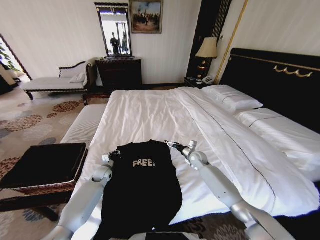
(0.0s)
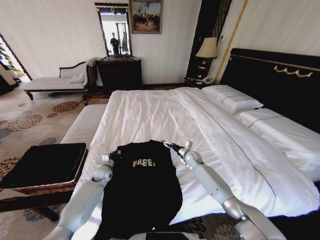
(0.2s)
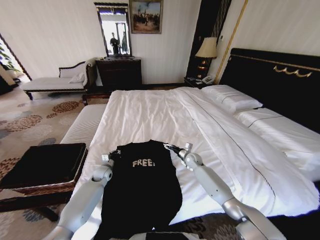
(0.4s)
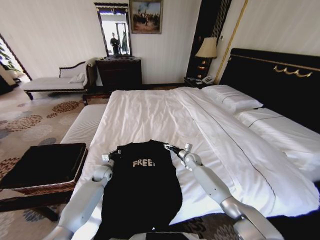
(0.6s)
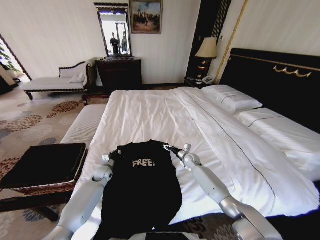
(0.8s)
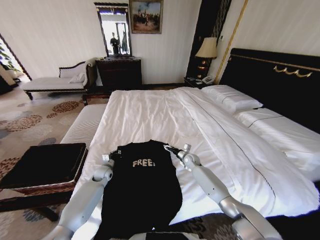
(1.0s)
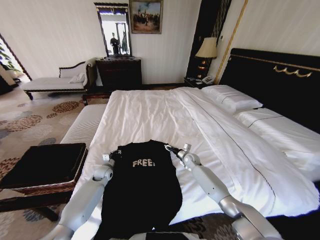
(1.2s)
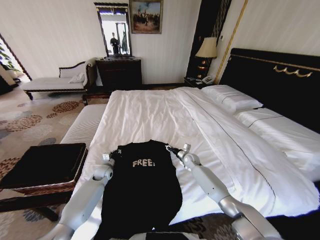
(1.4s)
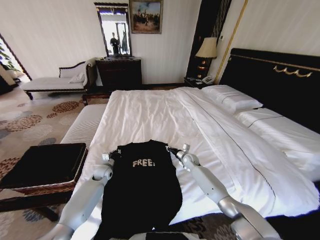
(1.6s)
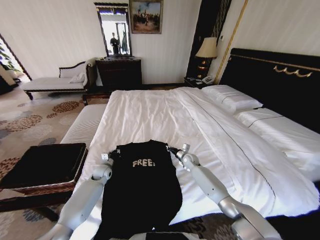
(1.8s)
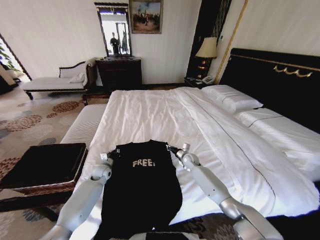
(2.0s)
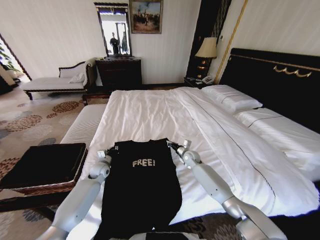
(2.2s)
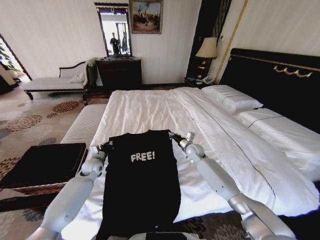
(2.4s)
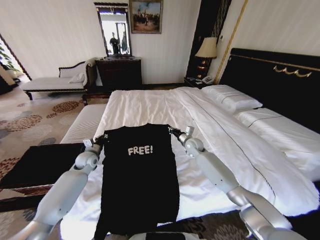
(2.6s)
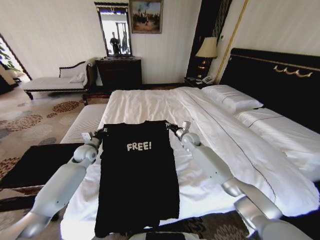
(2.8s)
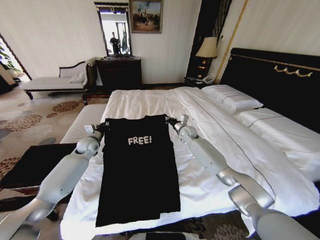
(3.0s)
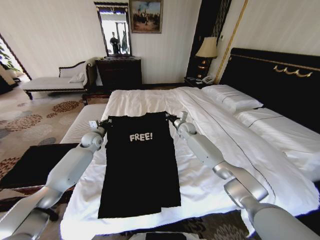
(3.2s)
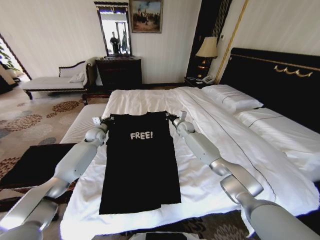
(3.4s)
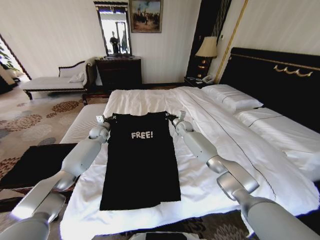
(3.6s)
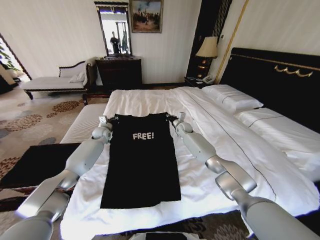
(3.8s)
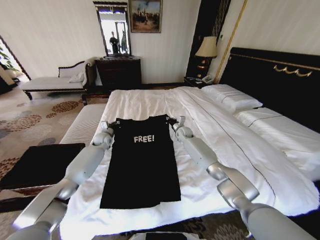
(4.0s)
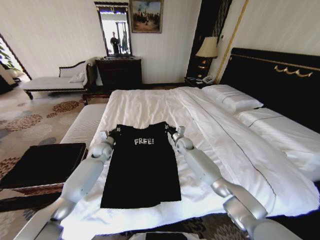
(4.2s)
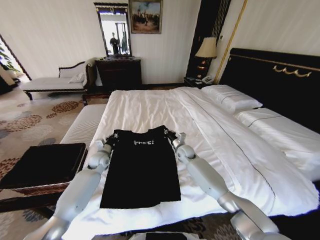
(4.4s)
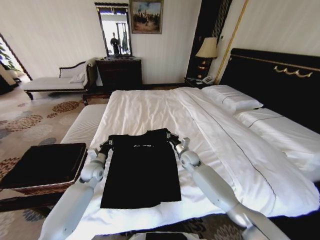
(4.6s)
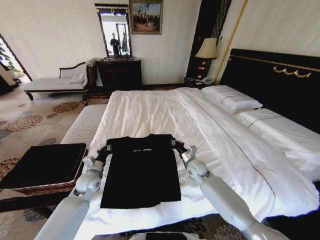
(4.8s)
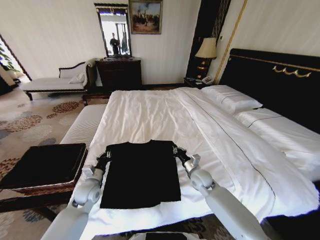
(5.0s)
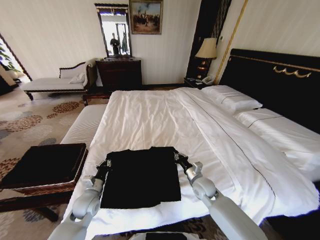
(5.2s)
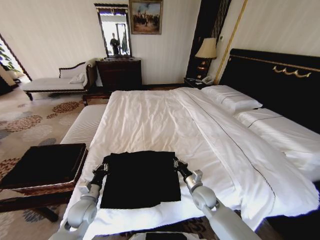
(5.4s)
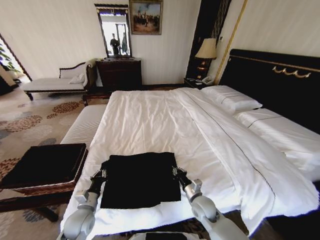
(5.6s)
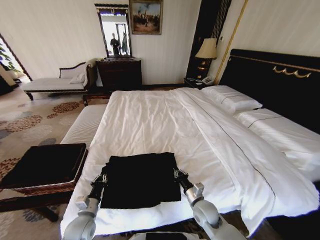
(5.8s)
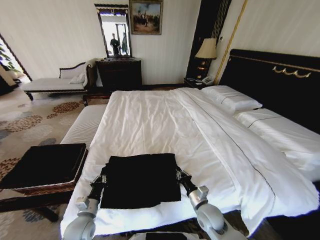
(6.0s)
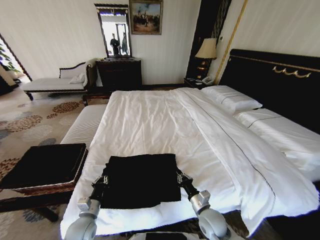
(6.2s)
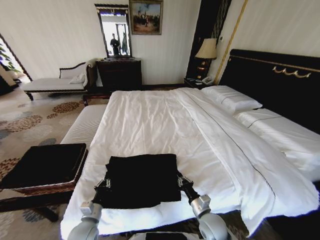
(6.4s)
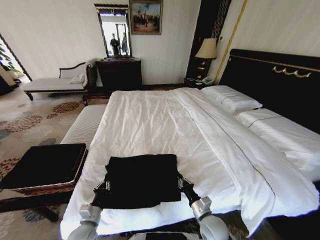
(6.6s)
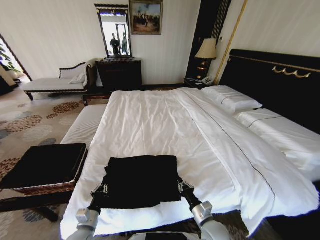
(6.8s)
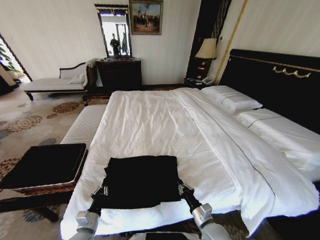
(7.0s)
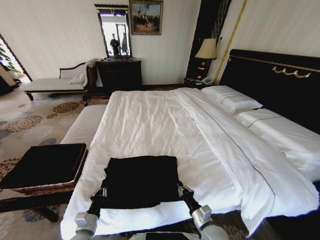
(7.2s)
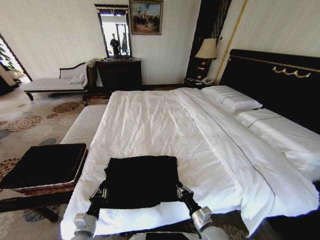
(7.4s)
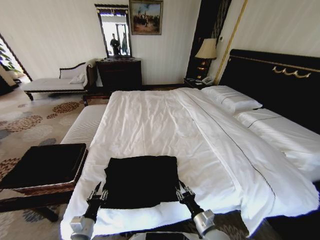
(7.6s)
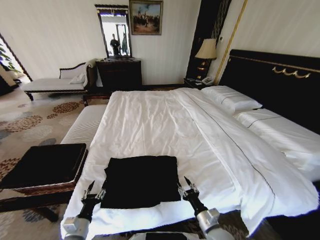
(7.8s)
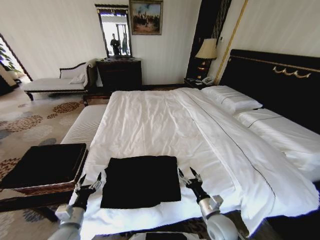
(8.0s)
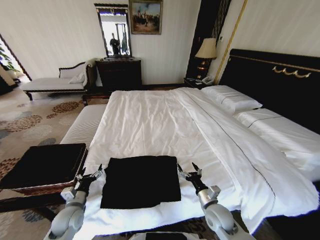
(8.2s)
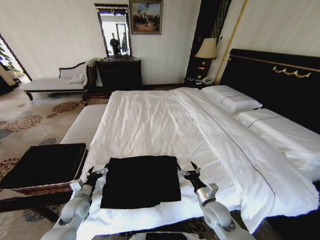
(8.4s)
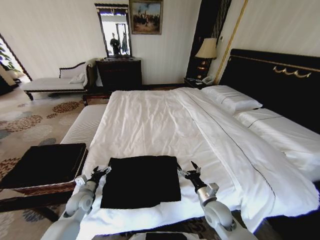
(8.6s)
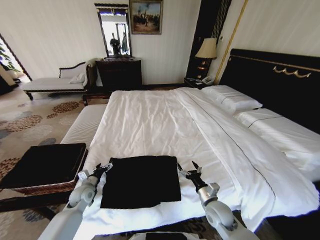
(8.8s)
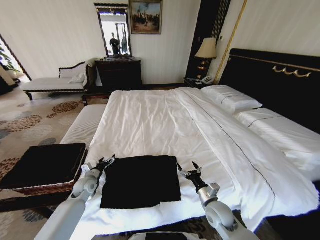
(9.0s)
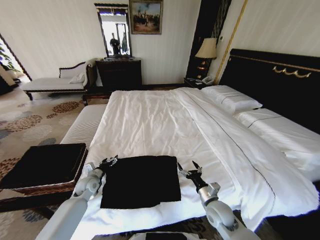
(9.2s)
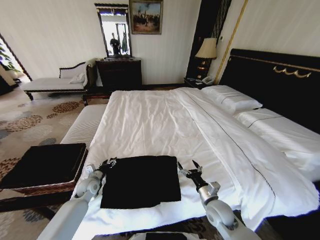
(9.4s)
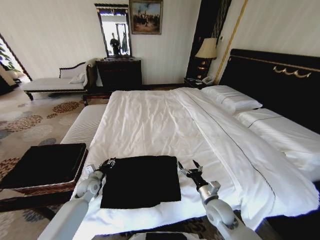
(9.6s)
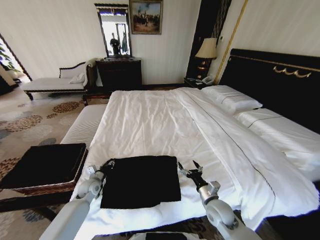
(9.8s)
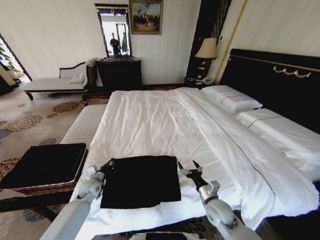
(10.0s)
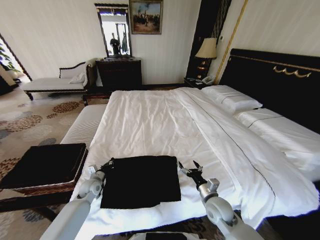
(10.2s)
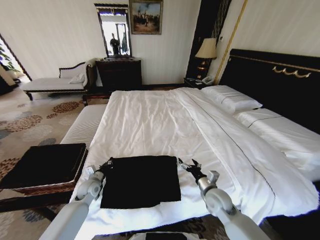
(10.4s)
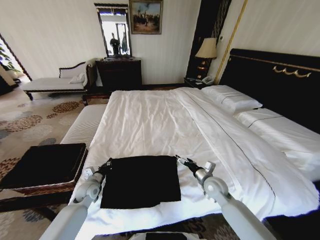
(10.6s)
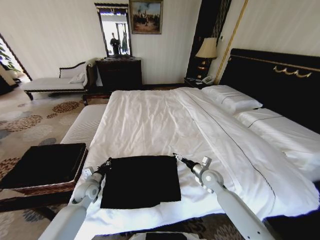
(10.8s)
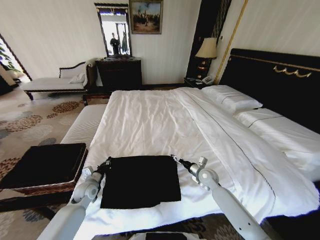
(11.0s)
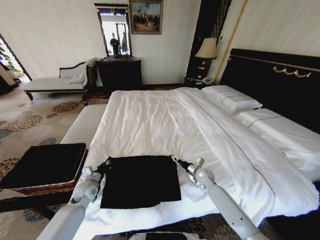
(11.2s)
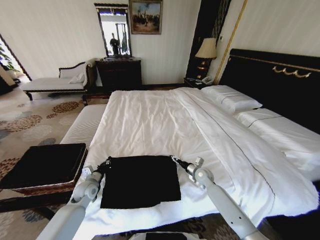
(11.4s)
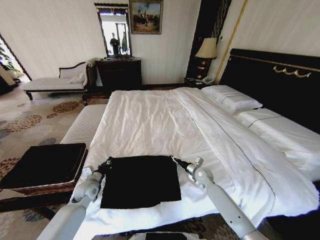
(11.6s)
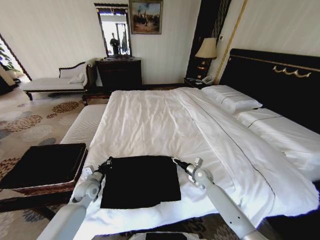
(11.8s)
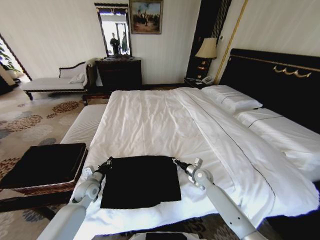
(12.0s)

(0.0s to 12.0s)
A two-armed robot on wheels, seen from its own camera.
Task of the whole recording: Fold the clothes on the bed and place them into the basket.
0.0s - 1.6s: The right gripper ends up approximately 5 cm from where it was, and closes up.
1.6s - 3.0s: The left gripper goes roughly 15 cm upward; the right gripper travels upward and forward by roughly 20 cm.
3.0s - 4.4s: The left gripper travels downward by about 10 cm, and goes forward and returns, some 10 cm each way. Meanwhile the right gripper heads backward and downward, covering approximately 10 cm.
4.4s - 6.0s: The grippers both shift backward by some 25 cm.
6.0s - 7.6s: The grippers both shift backward by approximately 5 cm.
7.6s - 9.0s: The right gripper travels forward by approximately 10 cm, and opens up; the left gripper goes some 20 cm forward, and opens.
9.0s - 10.4s: The right gripper ends up about 5 cm from where it was, while the left gripper closes up.
10.4s - 12.0s: The right gripper goes roughly 15 cm forward and downward, and closes its fingers.

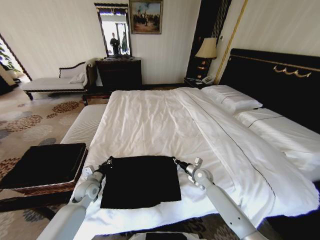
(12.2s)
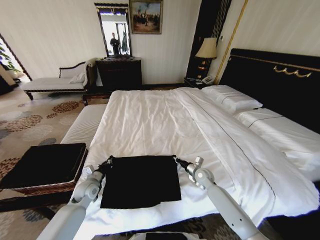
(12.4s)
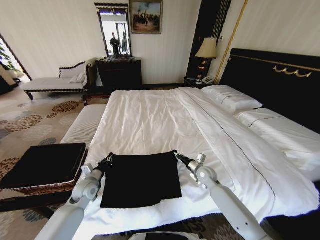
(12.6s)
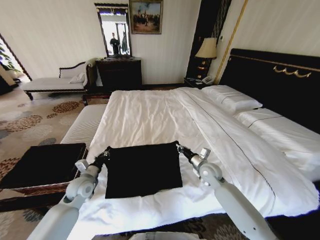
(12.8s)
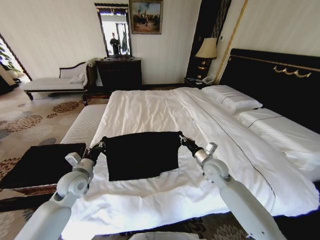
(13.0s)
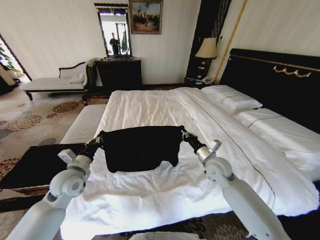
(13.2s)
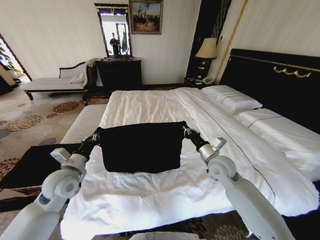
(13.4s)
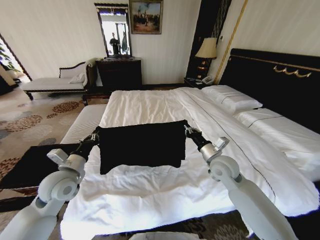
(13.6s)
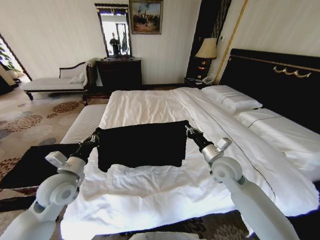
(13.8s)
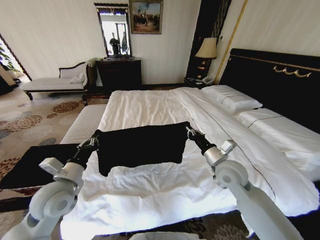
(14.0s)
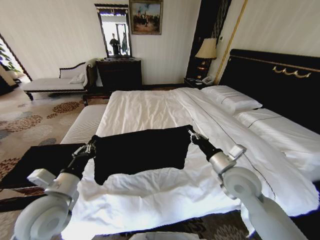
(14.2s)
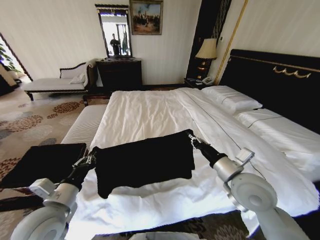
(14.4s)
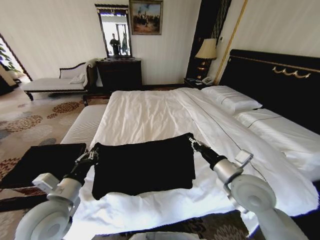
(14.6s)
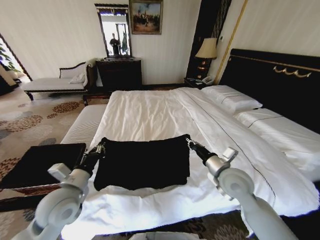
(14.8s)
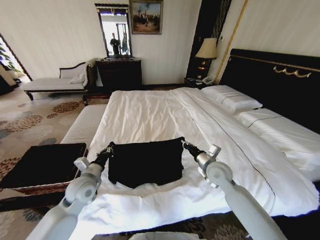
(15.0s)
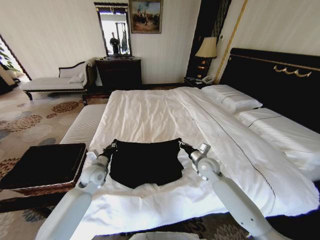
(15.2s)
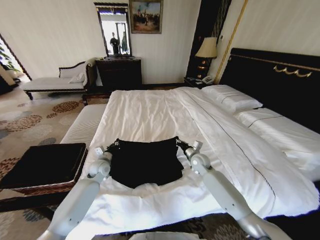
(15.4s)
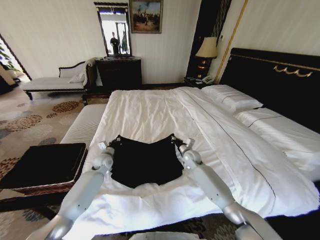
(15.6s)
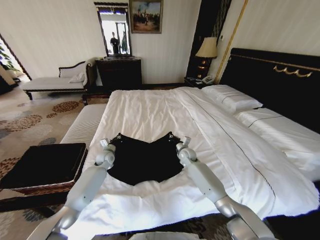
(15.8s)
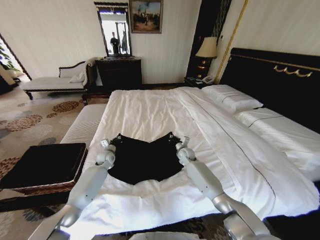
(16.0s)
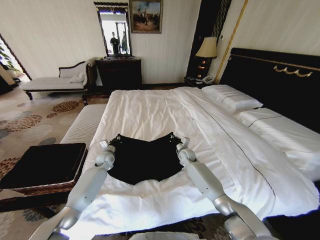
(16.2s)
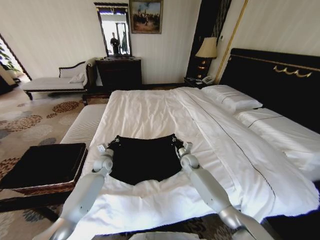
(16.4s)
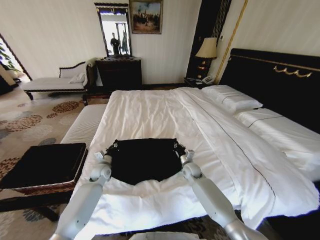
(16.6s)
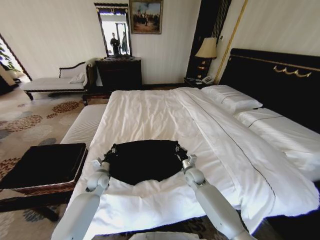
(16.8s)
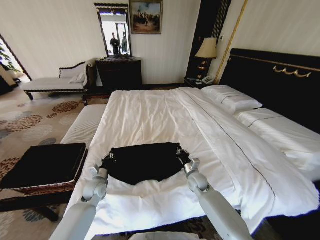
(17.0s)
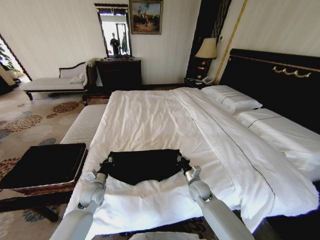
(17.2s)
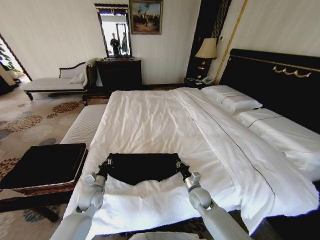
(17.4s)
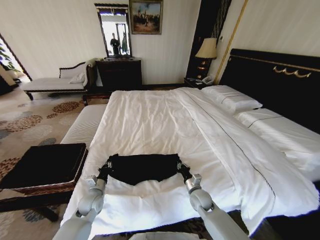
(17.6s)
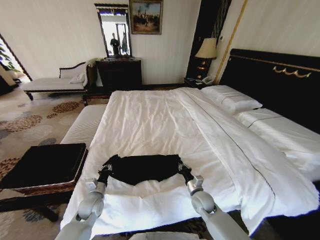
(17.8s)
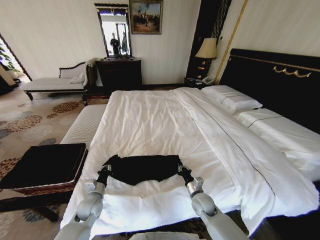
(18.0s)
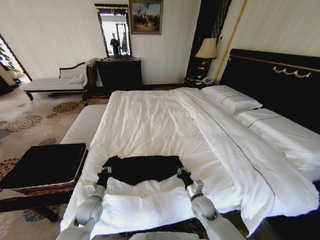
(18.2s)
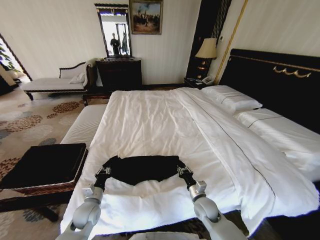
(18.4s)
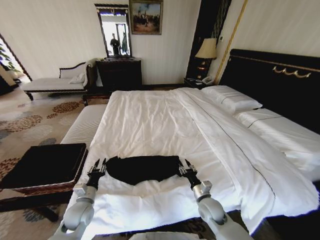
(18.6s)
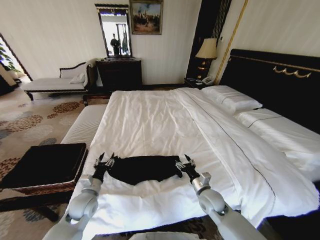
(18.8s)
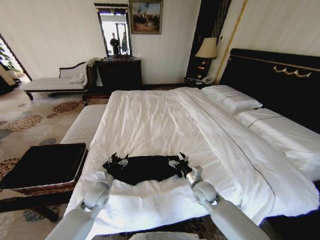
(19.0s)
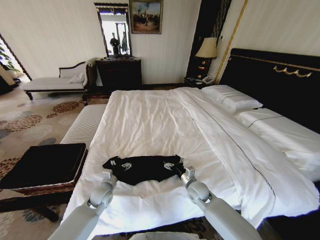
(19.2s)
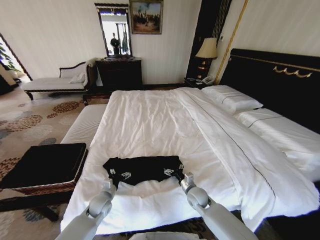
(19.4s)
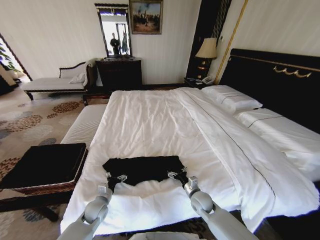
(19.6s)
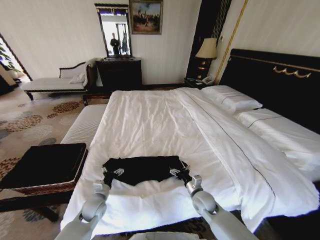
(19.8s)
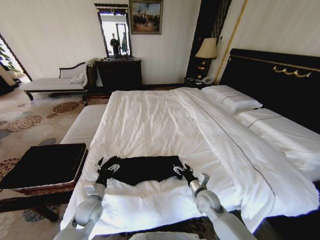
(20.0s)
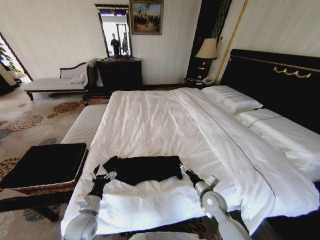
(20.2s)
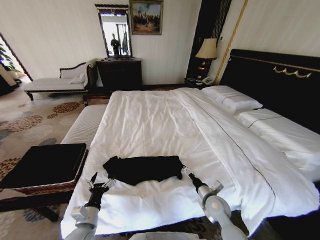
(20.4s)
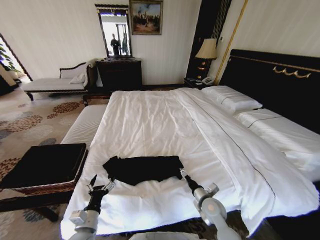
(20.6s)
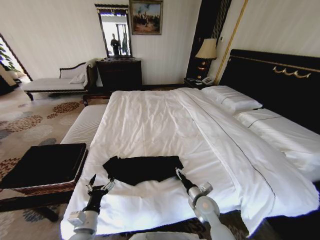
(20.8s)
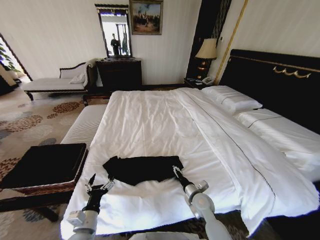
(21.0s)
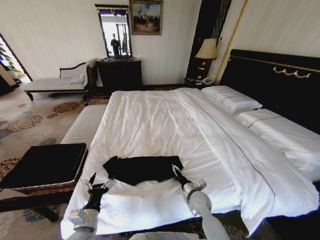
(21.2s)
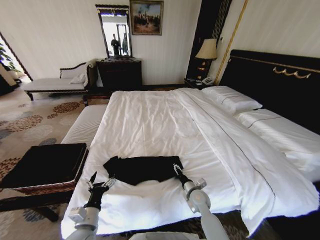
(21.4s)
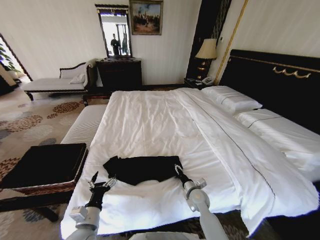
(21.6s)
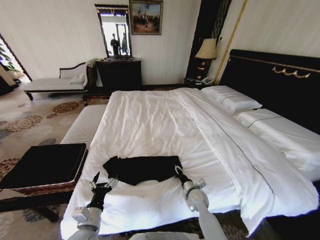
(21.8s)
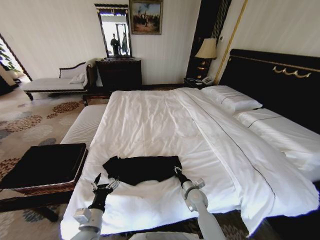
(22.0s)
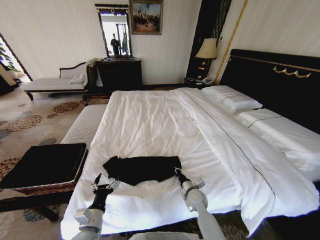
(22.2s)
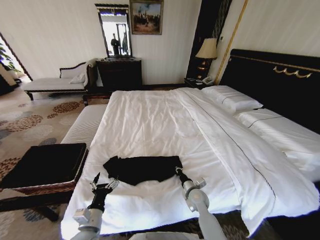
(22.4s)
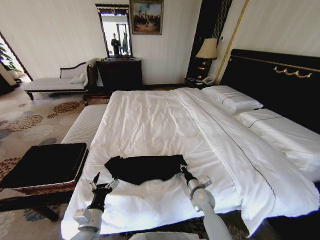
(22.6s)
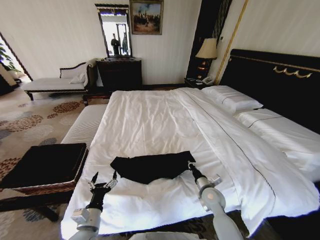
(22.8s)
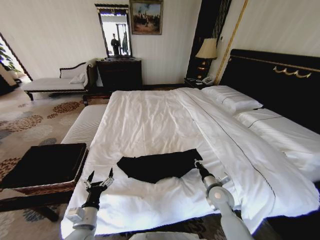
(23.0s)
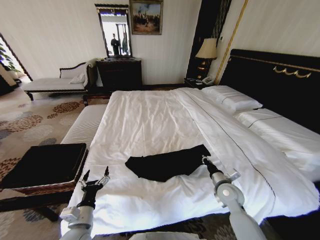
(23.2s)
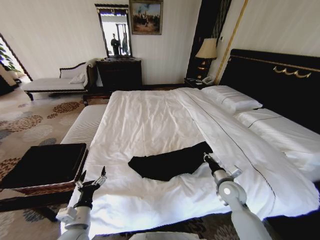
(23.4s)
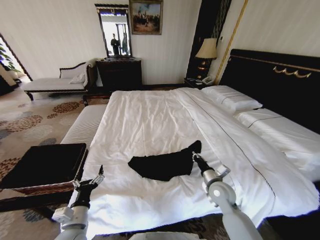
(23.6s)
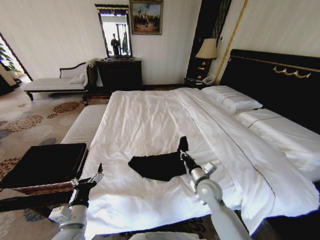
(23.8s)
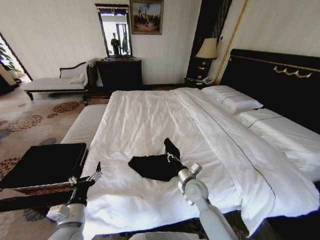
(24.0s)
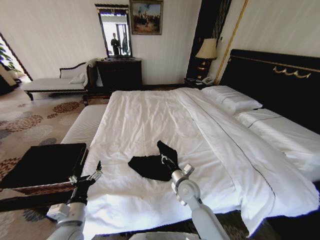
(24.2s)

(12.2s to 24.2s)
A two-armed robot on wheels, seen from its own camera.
Task of the whole recording: Fold the clothes on the bed and place them into the basket.
12.2s - 13.8s: The two grippers go approximately 20 cm upward.
13.8s - 15.2s: Both grippers travel together downward and forward, about 10 cm.
15.2s - 16.6s: The left gripper travels downward and forward by some 10 cm; the right gripper goes about 10 cm downward.
16.6s - 18.2s: Both grippers travel together backward, some 15 cm.
18.2s - 19.8s: The left gripper goes upward and returns, roughly 5 cm each way, and opens up; the right gripper opens.
19.8s - 21.2s: The left gripper moves backward and upward, roughly 15 cm.
21.2s - 22.6s: The right gripper closes.
22.6s - 24.2s: The right gripper is displaced to the left and upward by approximately 10 cm, while the left gripper changes place by about 5 cm.
